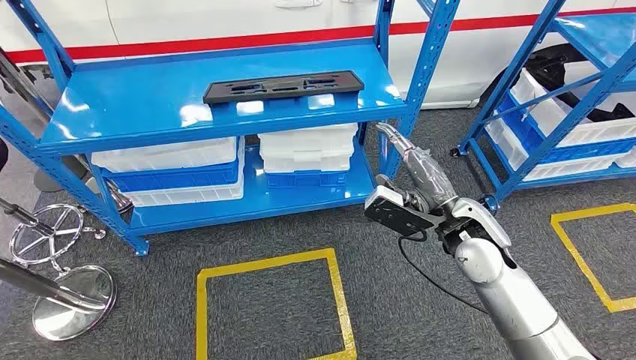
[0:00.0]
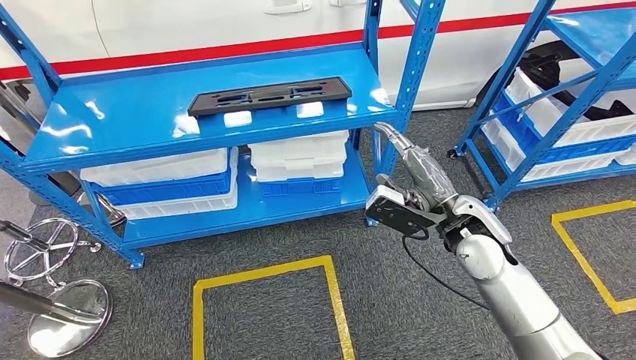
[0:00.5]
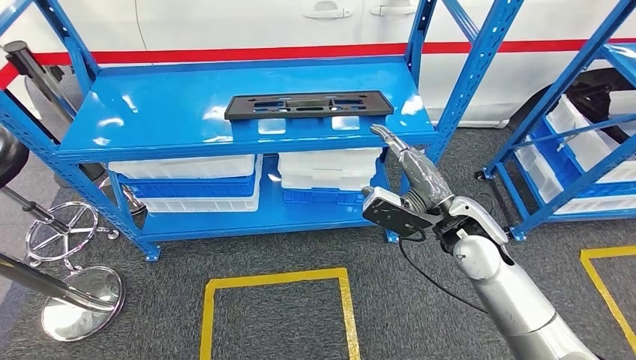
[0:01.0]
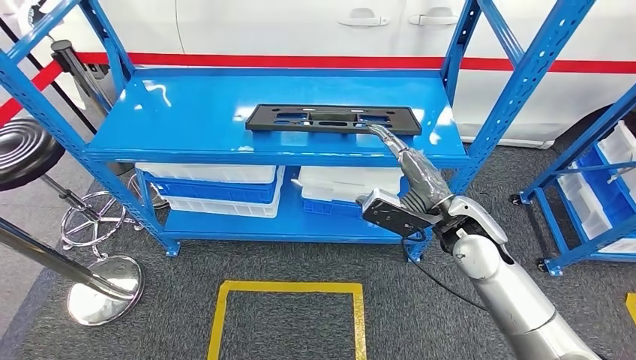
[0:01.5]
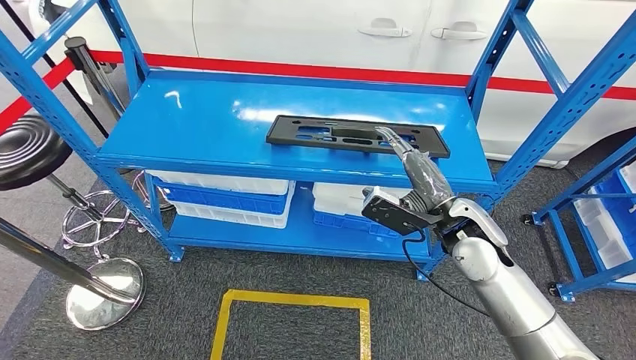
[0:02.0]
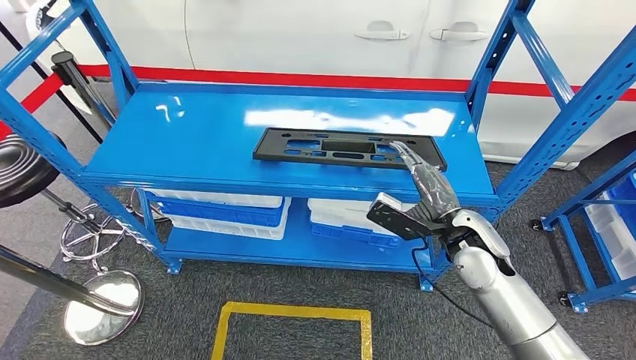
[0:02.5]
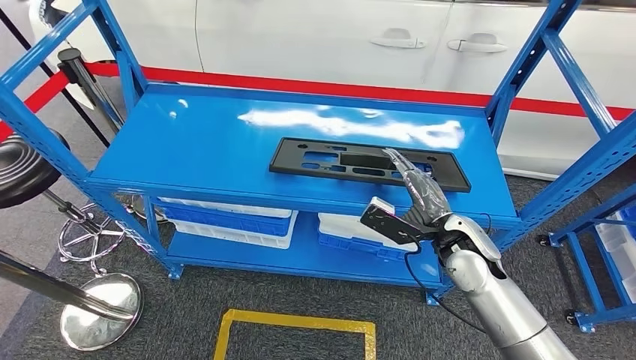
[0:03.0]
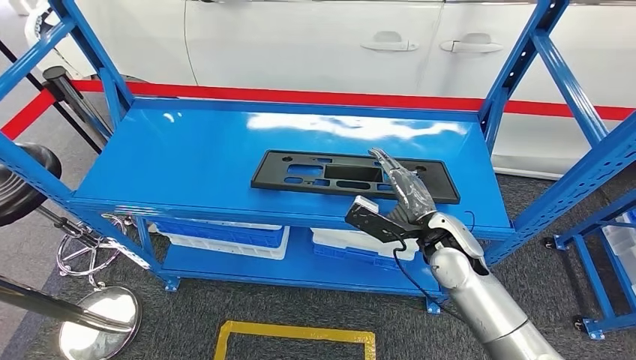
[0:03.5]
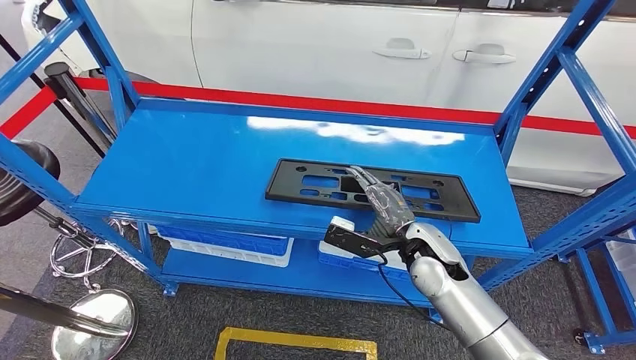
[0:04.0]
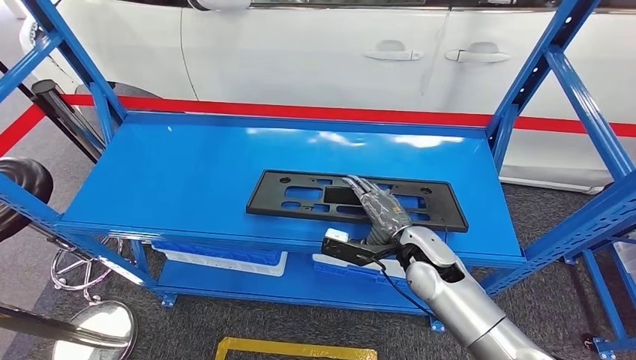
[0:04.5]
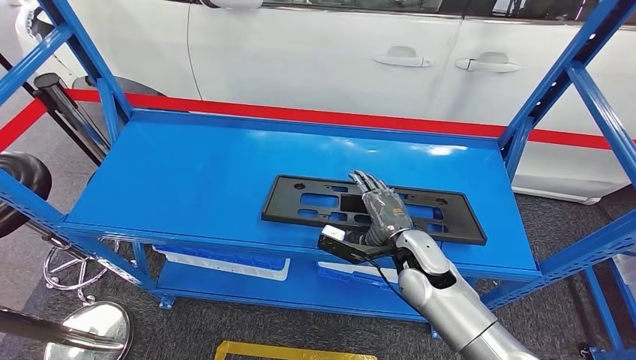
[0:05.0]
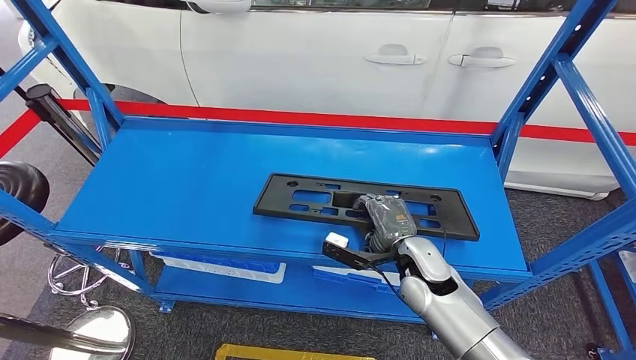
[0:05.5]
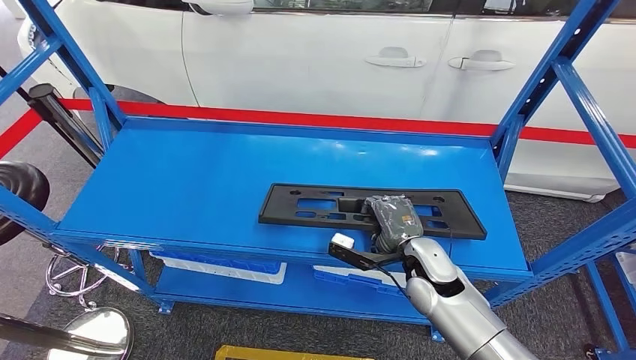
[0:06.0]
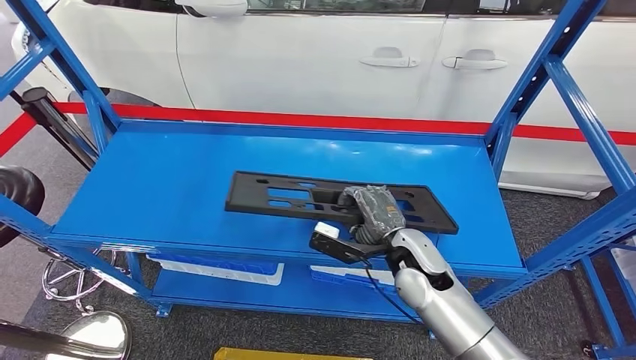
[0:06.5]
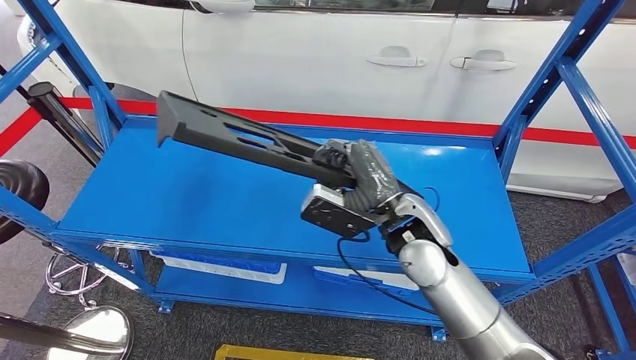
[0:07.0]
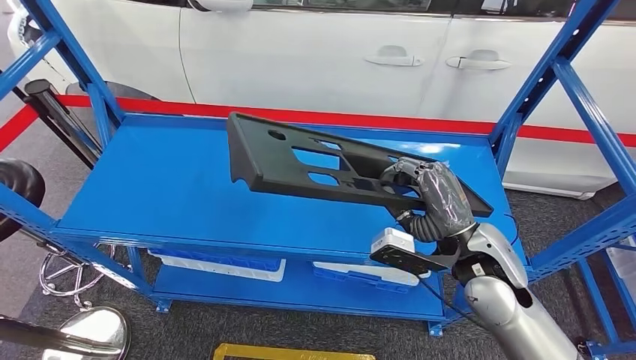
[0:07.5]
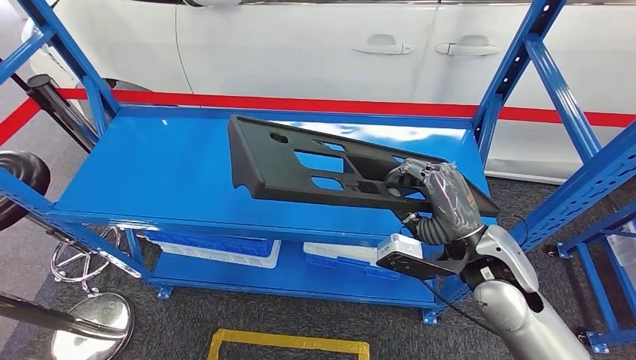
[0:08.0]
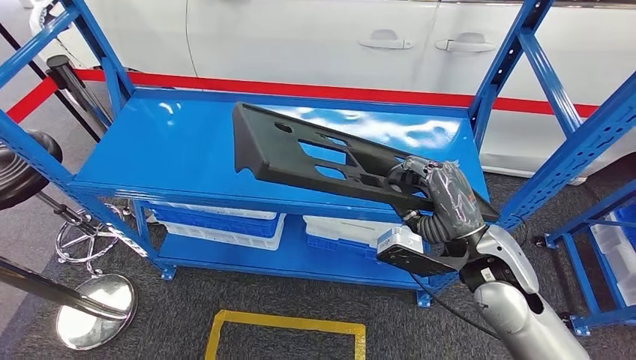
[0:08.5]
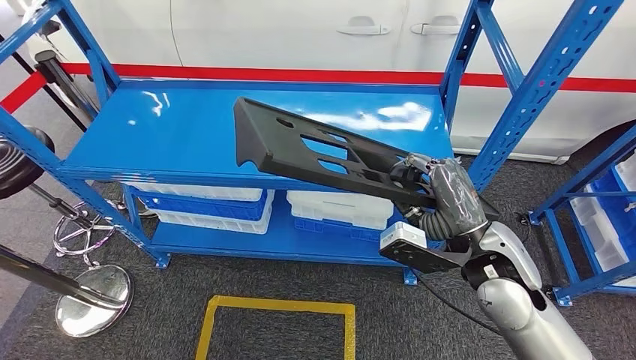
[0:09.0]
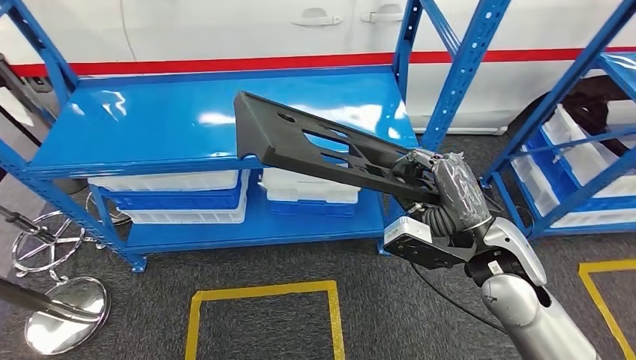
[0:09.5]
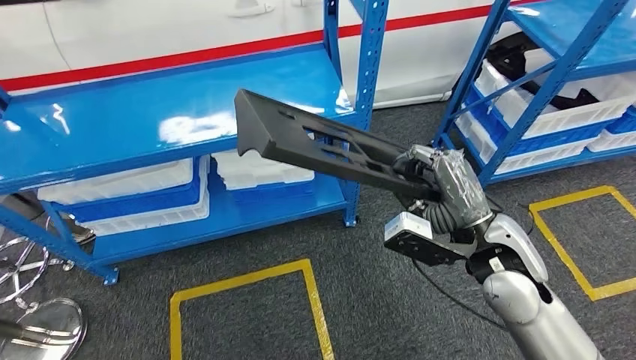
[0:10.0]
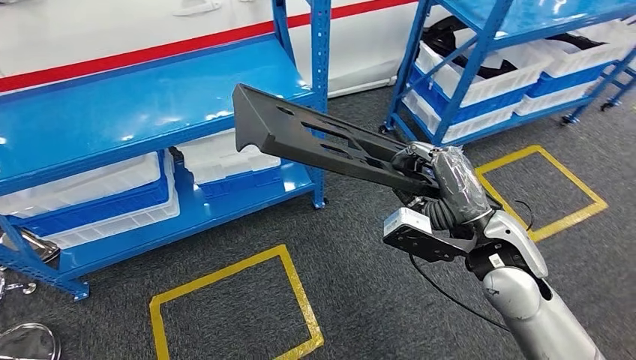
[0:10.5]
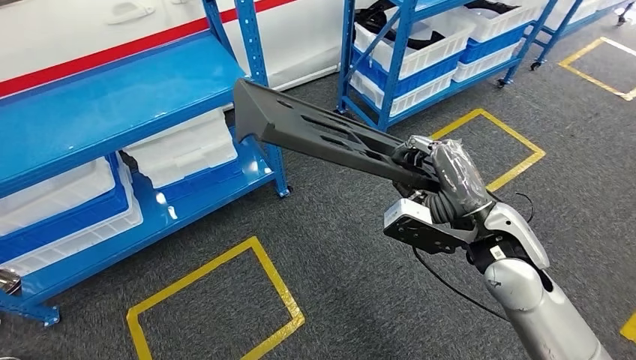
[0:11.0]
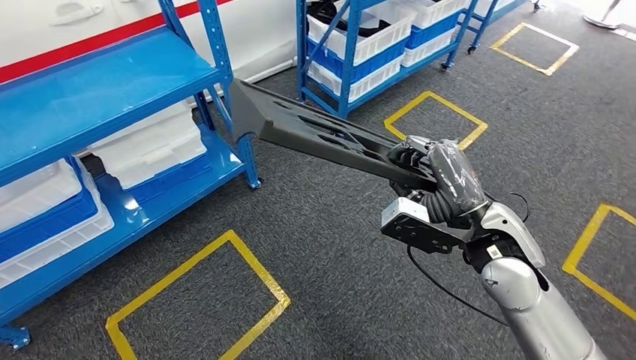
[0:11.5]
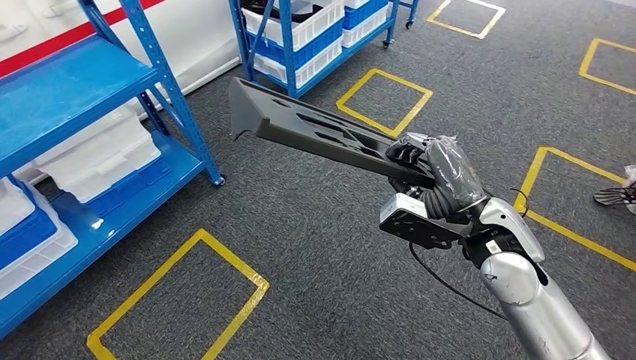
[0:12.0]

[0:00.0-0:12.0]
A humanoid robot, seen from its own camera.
Step, 0:00.0 to 0:10.0: Pick up the large material from the shelf.

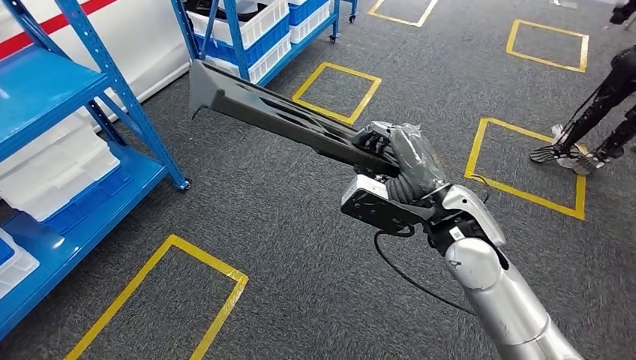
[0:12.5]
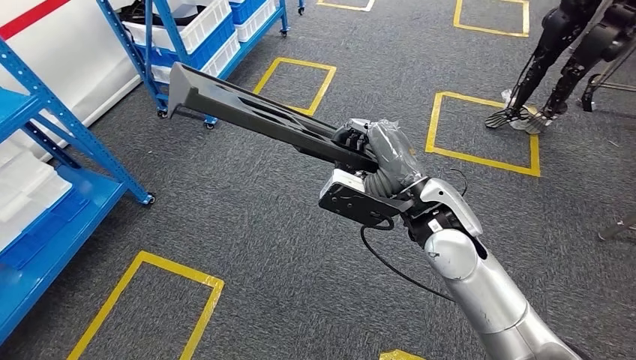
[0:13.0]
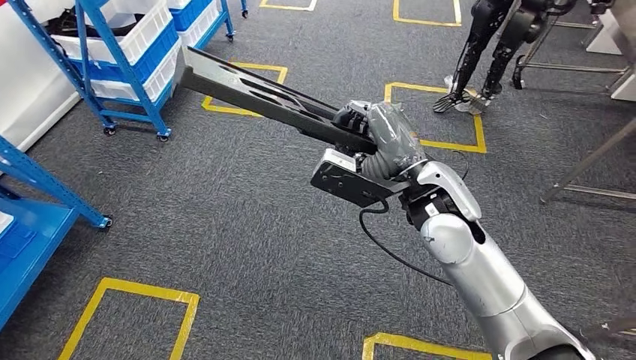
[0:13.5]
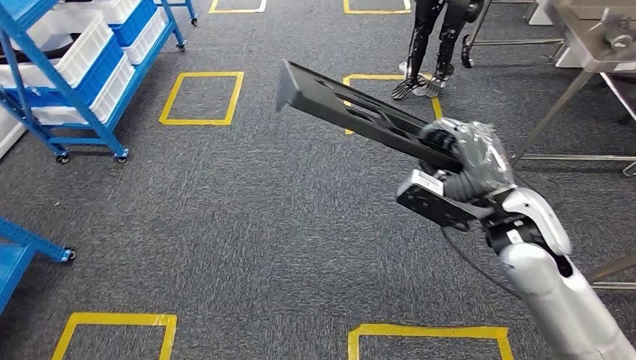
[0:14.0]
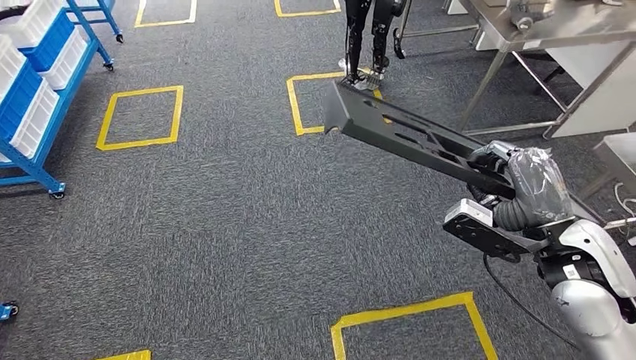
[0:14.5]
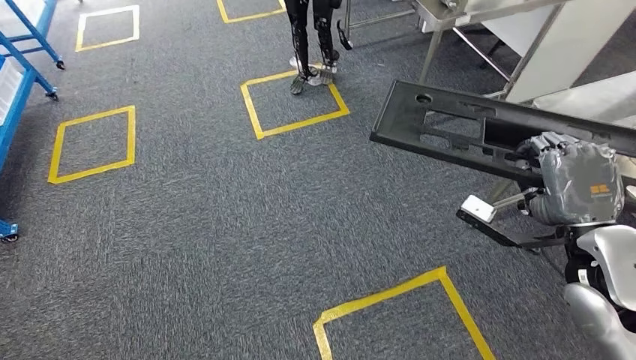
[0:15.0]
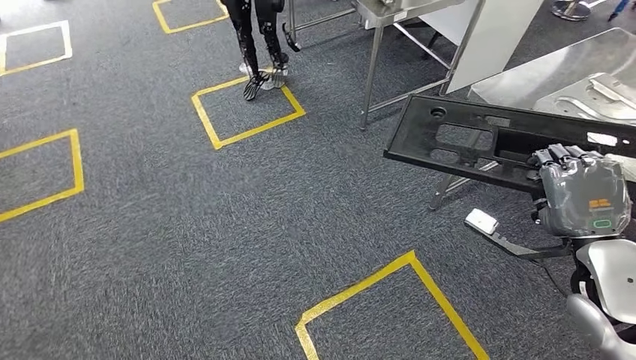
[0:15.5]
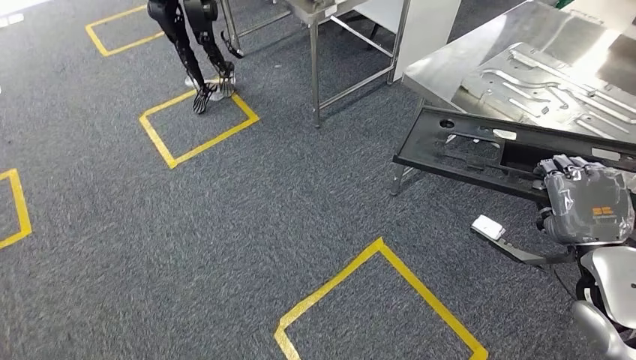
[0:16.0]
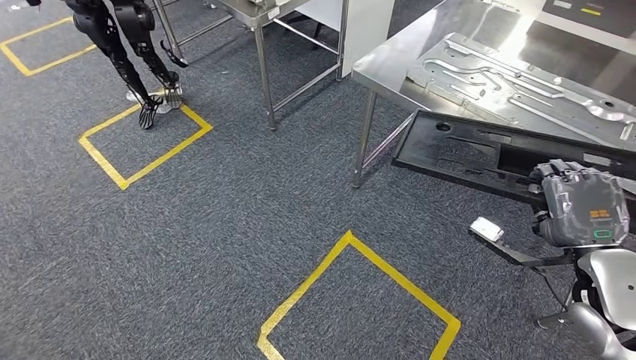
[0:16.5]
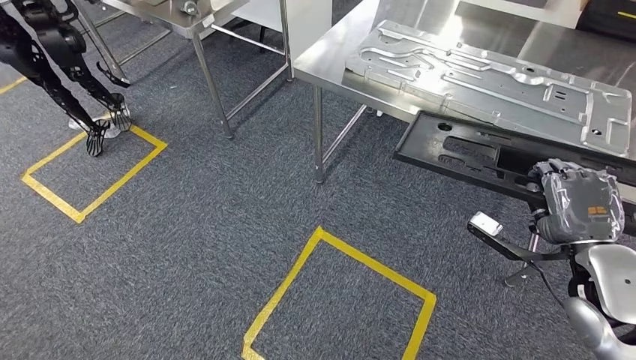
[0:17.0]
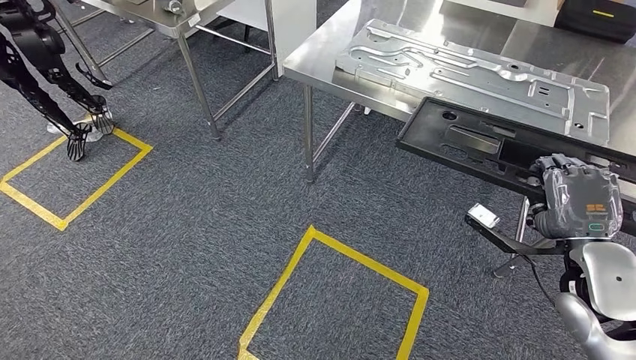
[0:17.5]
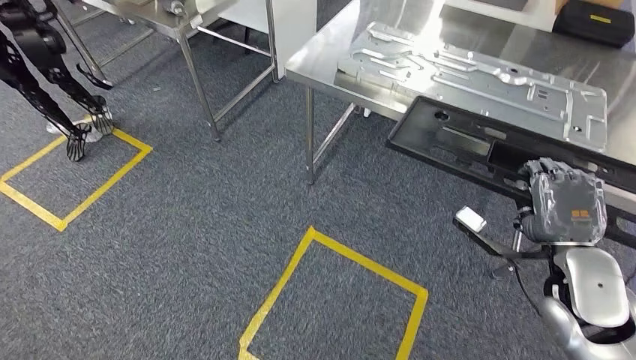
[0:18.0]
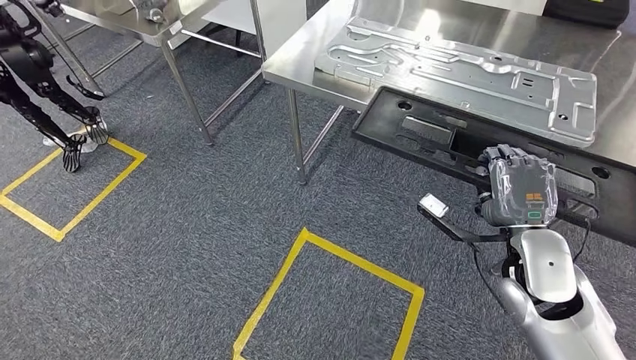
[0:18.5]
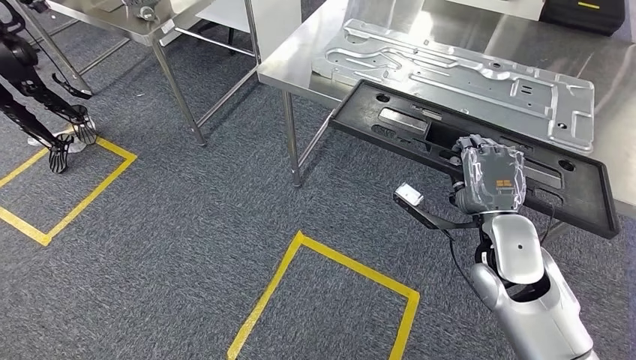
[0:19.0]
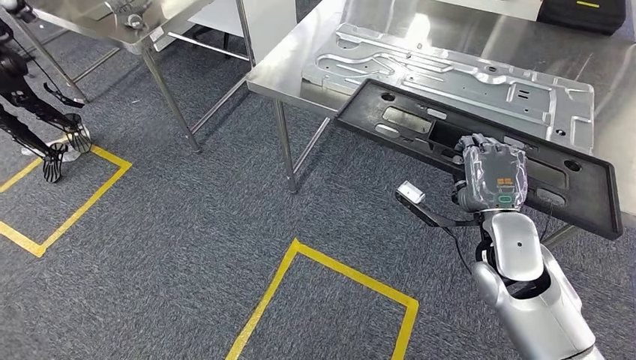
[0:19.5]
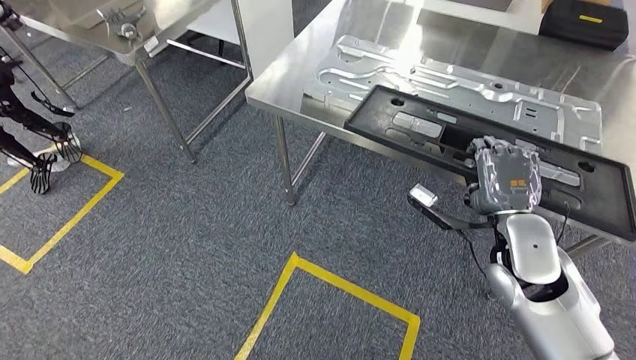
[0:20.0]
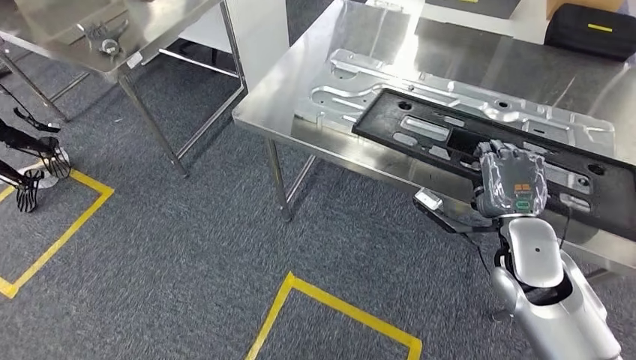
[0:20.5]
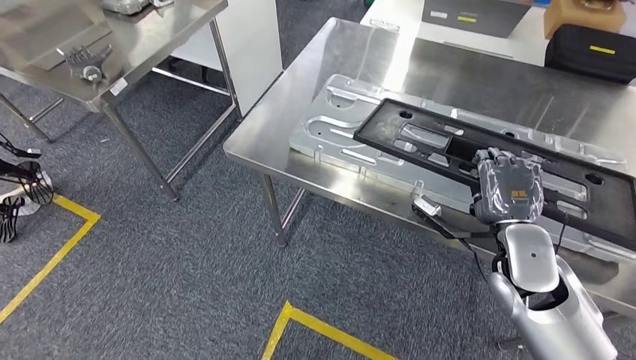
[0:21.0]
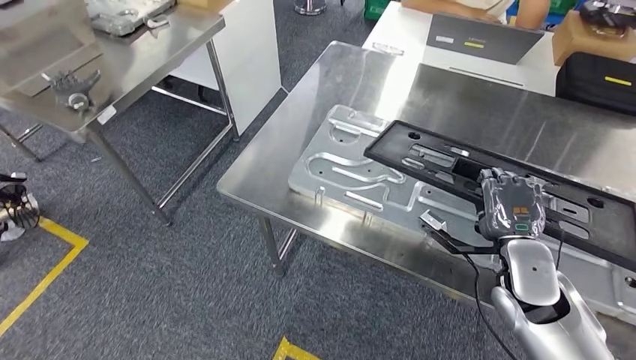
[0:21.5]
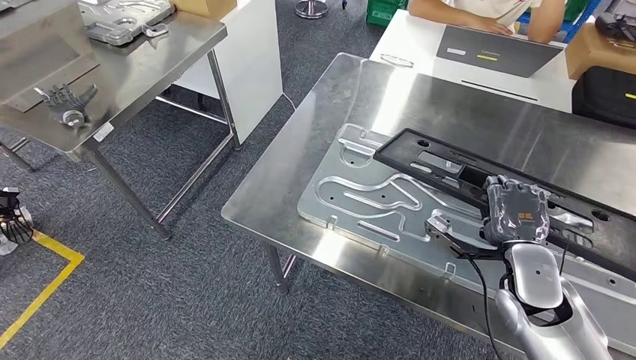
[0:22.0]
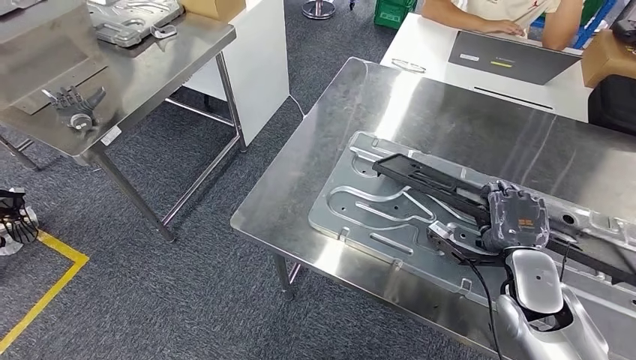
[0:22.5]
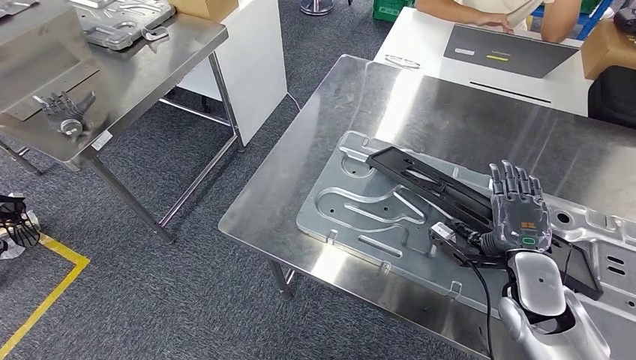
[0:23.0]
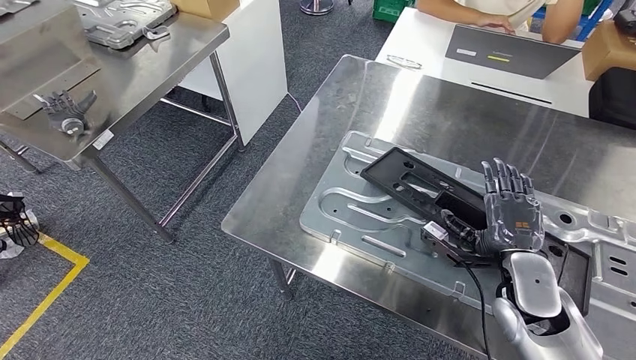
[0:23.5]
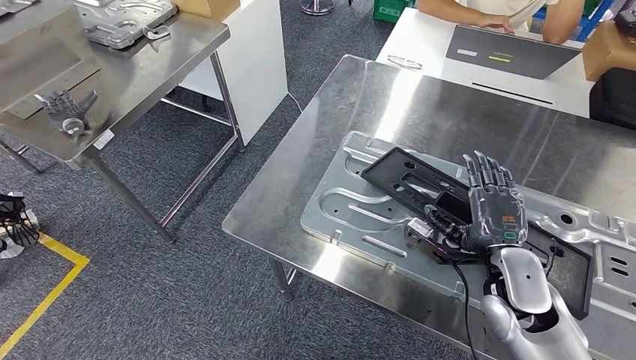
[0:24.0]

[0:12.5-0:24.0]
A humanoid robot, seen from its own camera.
Step, 0:12.5 to 0:20.5: Move the large material to the workbench.
